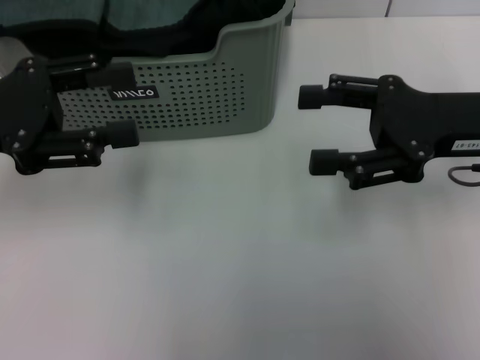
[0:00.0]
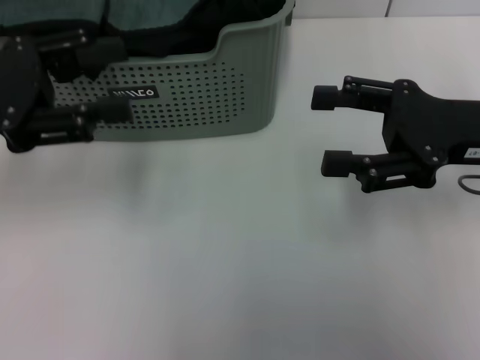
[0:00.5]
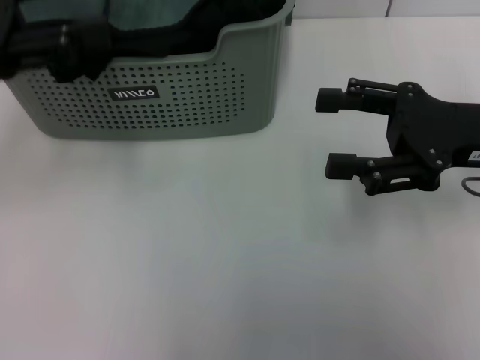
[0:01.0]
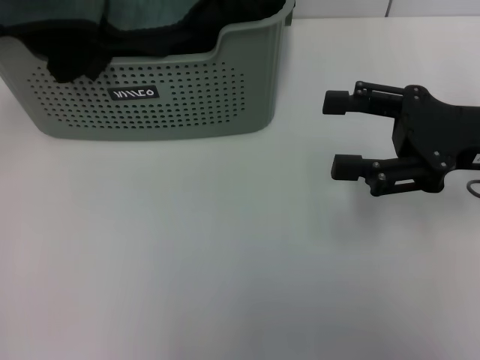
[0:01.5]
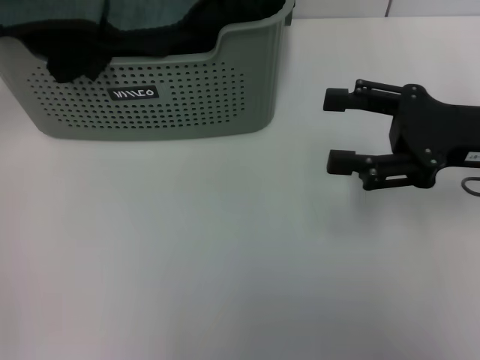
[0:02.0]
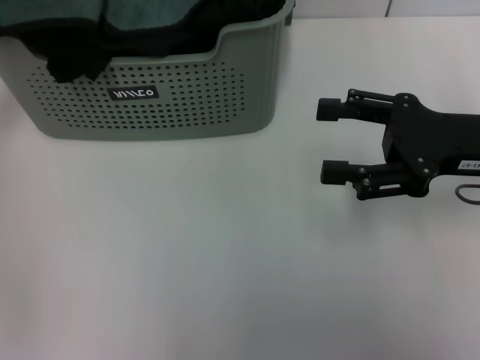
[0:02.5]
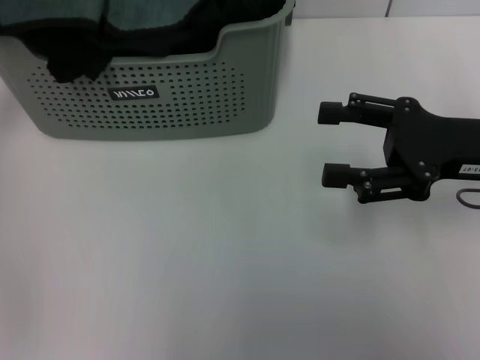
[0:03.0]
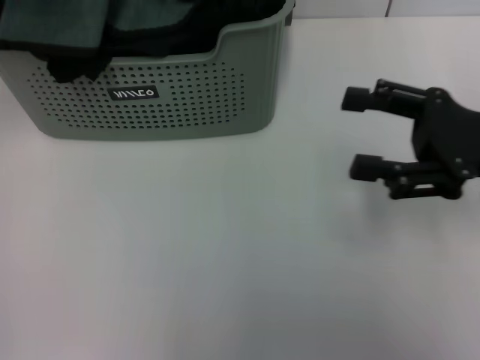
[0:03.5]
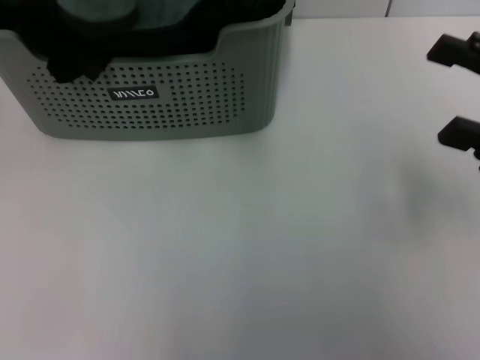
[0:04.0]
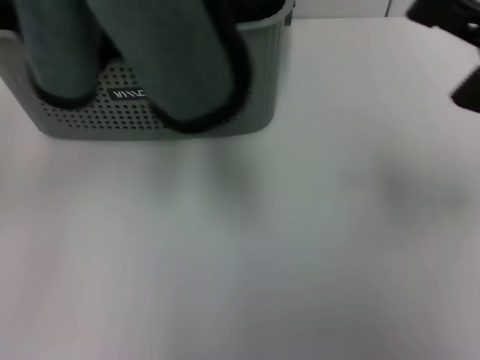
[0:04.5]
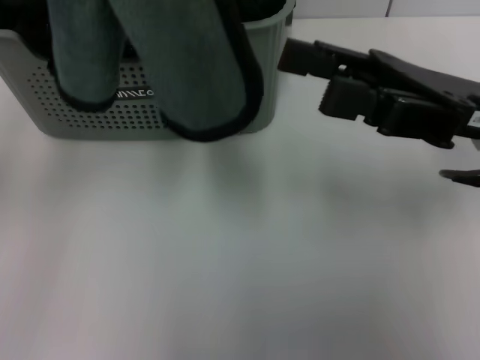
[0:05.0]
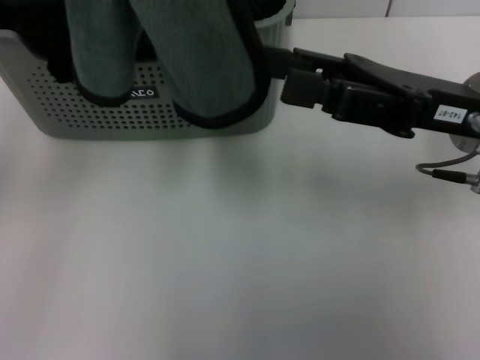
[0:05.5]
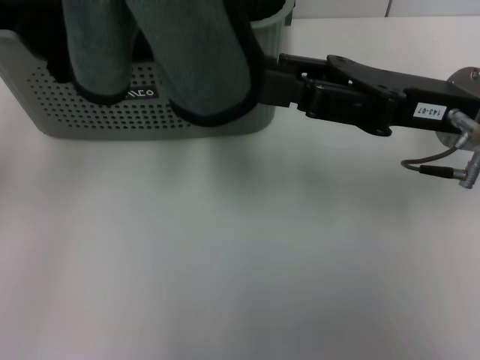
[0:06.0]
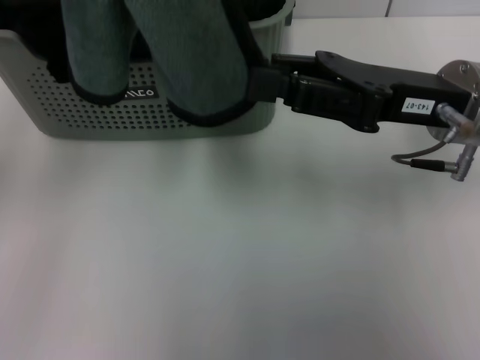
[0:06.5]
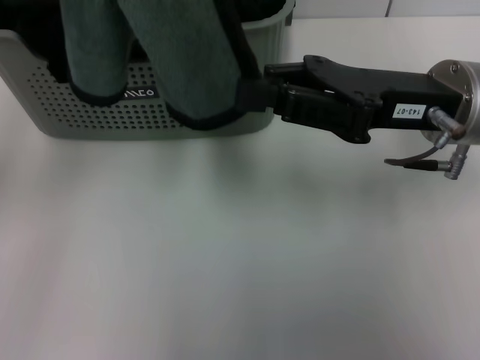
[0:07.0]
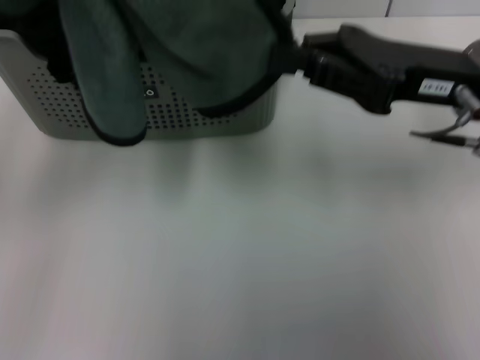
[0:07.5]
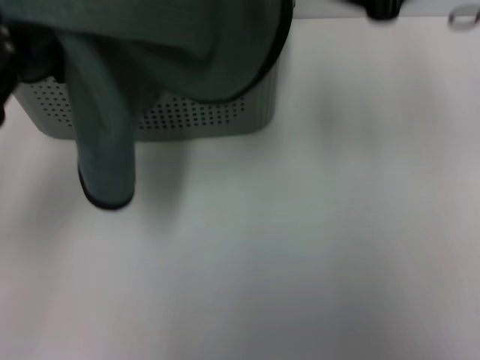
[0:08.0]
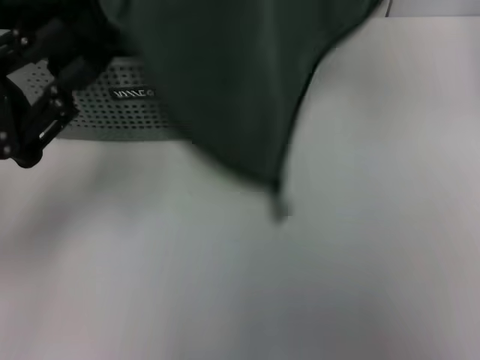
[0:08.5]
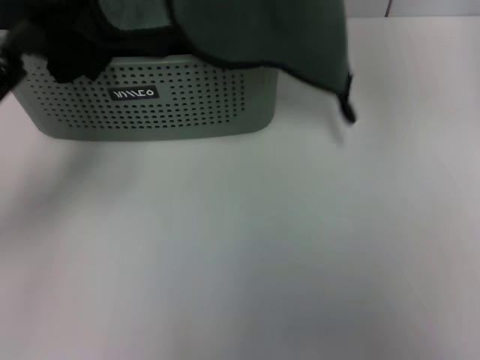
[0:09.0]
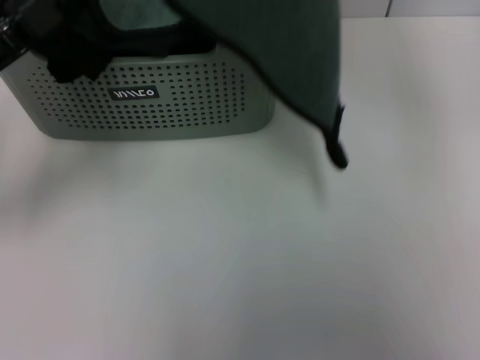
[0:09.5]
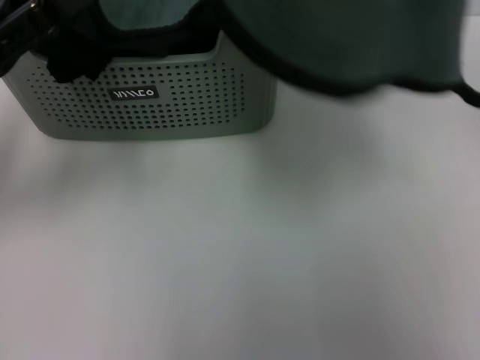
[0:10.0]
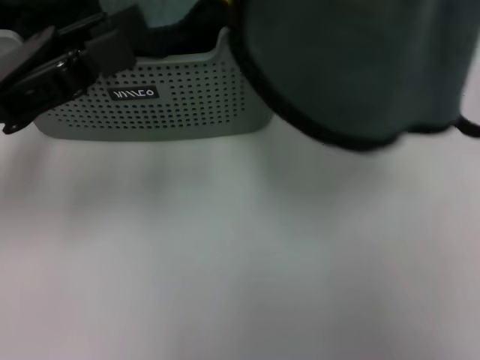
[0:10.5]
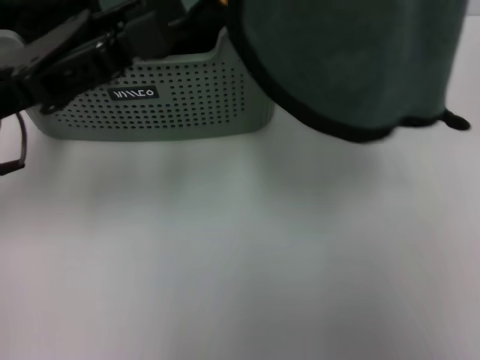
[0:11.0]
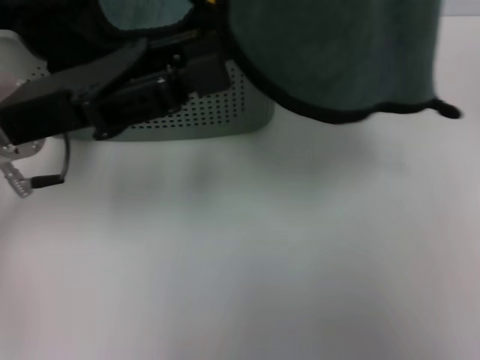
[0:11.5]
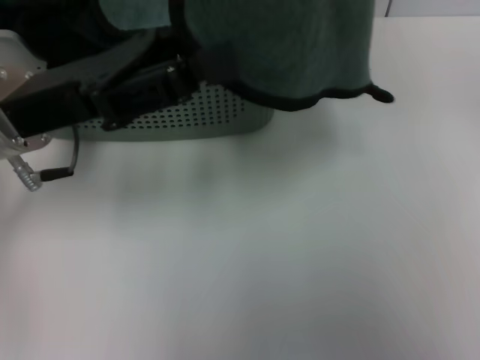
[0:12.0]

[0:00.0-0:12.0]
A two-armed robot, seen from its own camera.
Task of the whole recording: pick up the towel from the storage box and lay it flat on the table.
Step, 0:00.0 to 0:03.0: Pick up a towel with the left gripper.
Step, 0:04.0 to 0:07.0: Spread the towel flat with the left gripper.
0:00.0 to 0:02.0: The left gripper heads upward and forward, covering some 15 cm.
0:02.0 to 0:04.0: The right gripper changes place by approximately 5 cm; the left gripper is displaced backward by about 5 cm, and closes its fingers.
0:04.0 to 0:06.0: The left gripper shifts by approximately 5 cm, while the right gripper is displaced to the left by about 10 cm, and closes.
0:06.0 to 0:08.0: The left gripper is displaced downward by approximately 10 cm. Meanwhile the right gripper goes some 15 cm upward, and closes.
0:08.0 to 0:10.0: The right gripper goes about 20 cm upward, while the left gripper travels forward by some 5 cm, and opens its fingers.
0:10.0 to 0:12.0: The right gripper shifts roughly 5 cm forward, while the left gripper shifts about 10 cm to the right.

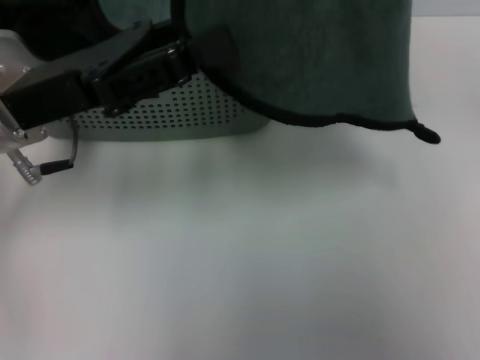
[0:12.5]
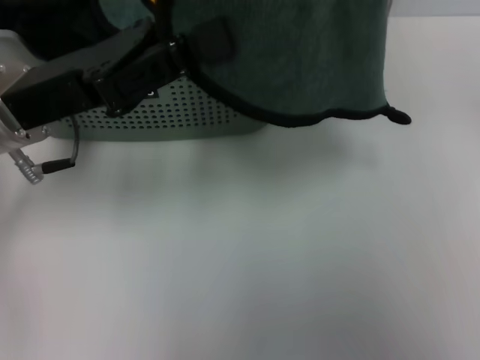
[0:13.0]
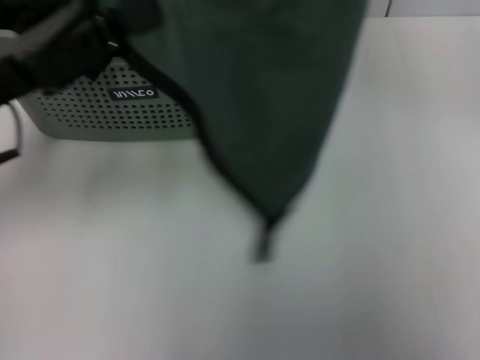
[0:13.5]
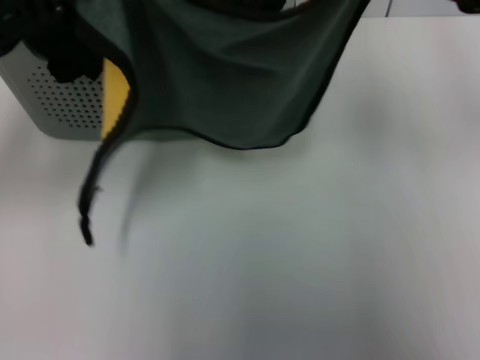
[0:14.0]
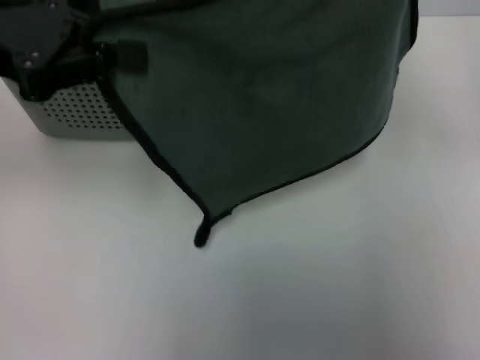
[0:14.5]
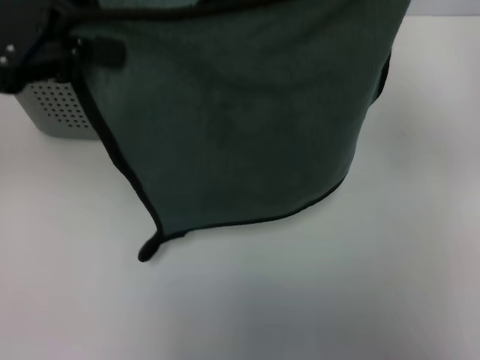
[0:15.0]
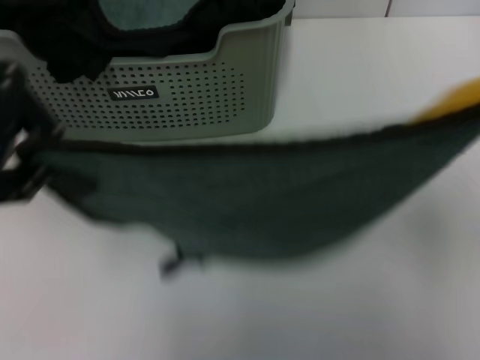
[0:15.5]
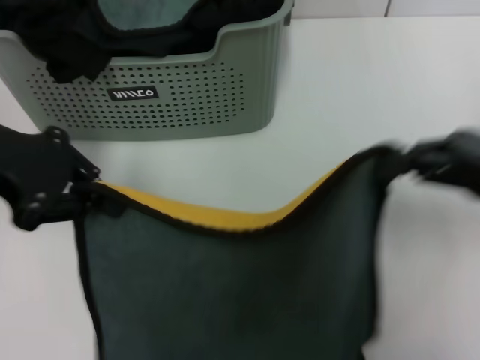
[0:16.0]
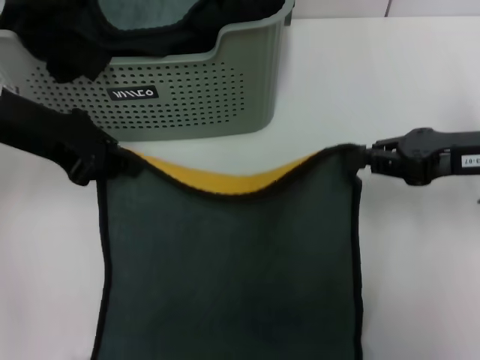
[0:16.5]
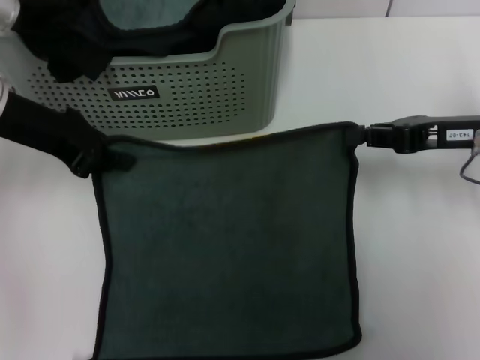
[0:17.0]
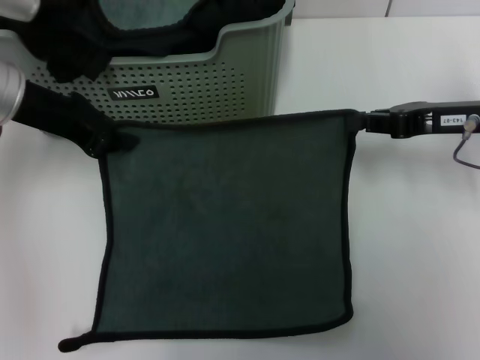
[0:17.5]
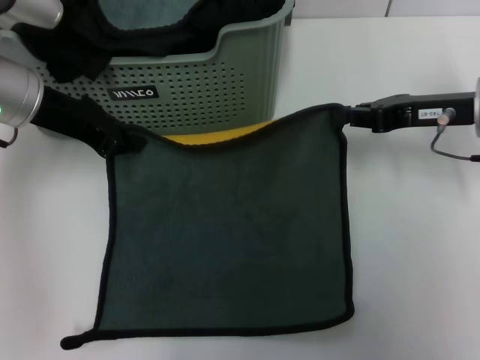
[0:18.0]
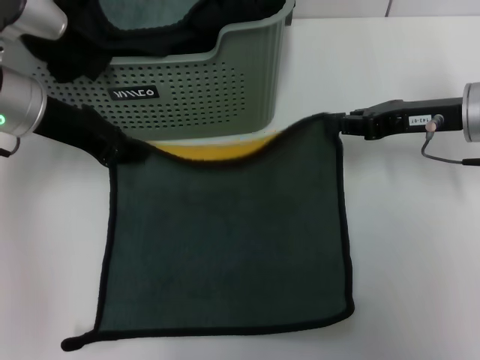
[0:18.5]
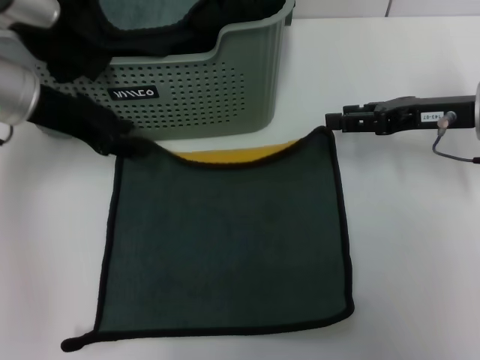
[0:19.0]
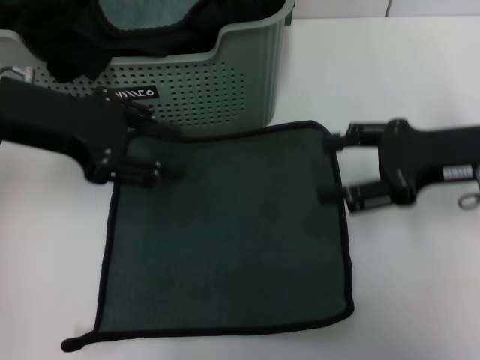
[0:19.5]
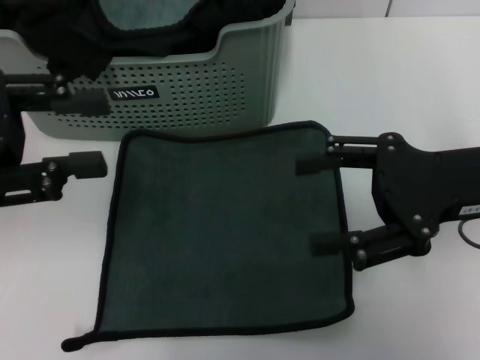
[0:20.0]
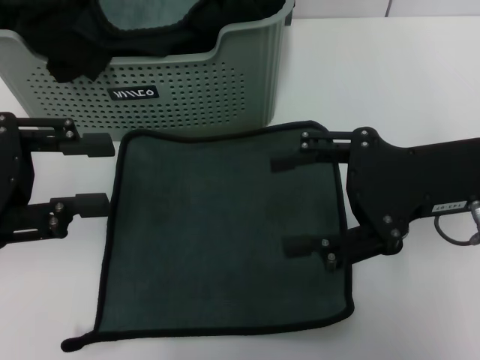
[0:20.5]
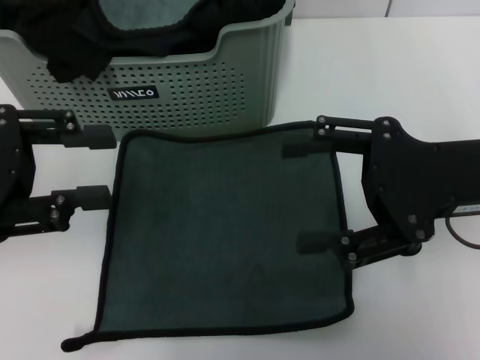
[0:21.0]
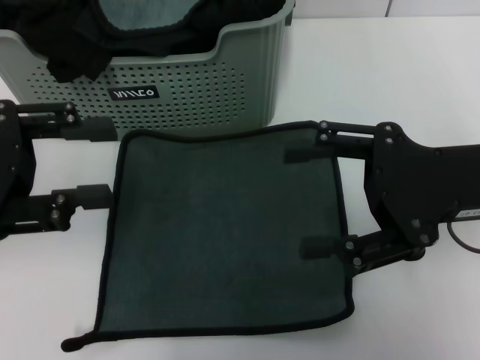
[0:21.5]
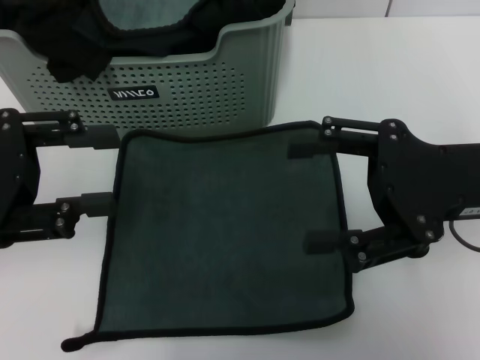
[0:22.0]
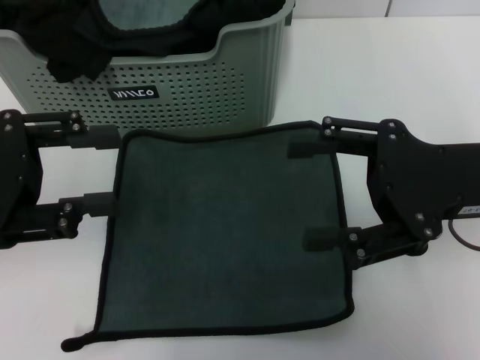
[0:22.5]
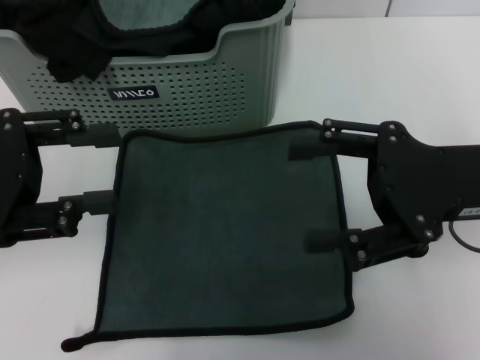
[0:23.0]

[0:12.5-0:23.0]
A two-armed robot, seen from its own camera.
Task of the whole recording: pick up the towel from the storage box and lay it flat on the table.
Step, 0:12.5 to 0:19.0: Spread the towel flat with the right gripper.
0:12.5 to 0:14.5: The right gripper goes some 10 cm downward and to the right. Meanwhile the left gripper goes roughly 10 cm upward and to the left, and closes.
0:14.5 to 0:16.5: The left gripper is displaced downward by about 5 cm. Meanwhile the right gripper moves downward, roughly 15 cm.
0:16.5 to 0:19.0: The right gripper heads forward, covering some 5 cm. Meanwhile the left gripper opens up.
0:19.0 to 0:21.0: The right gripper travels backward by roughly 10 cm, and opens. Meanwhile the left gripper is displaced backward and to the left by about 15 cm.
0:21.0 to 0:23.0: Both grippers stay about where they are.
